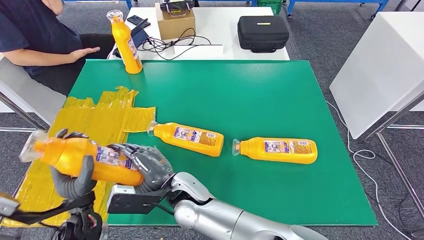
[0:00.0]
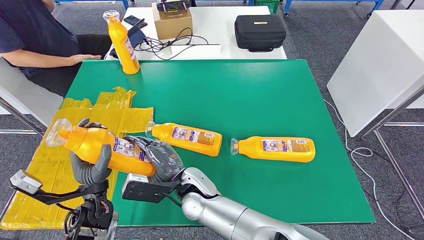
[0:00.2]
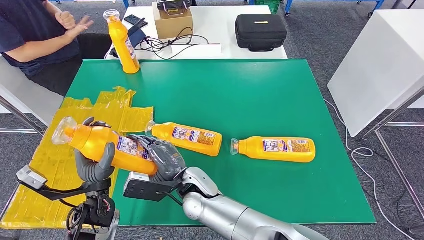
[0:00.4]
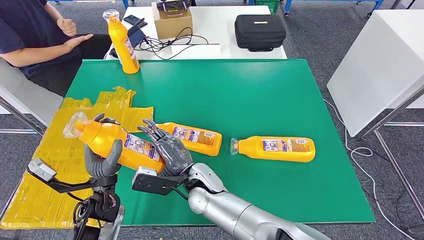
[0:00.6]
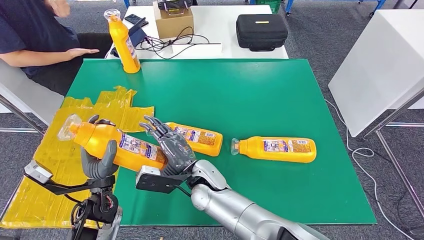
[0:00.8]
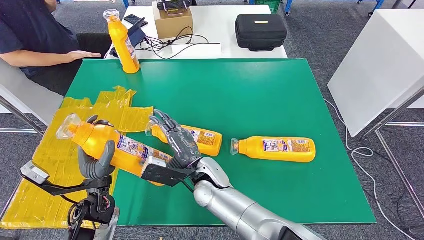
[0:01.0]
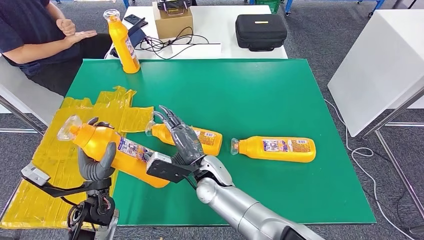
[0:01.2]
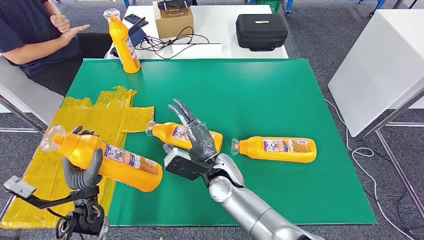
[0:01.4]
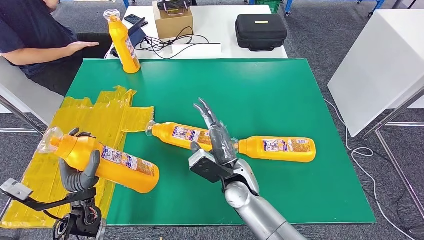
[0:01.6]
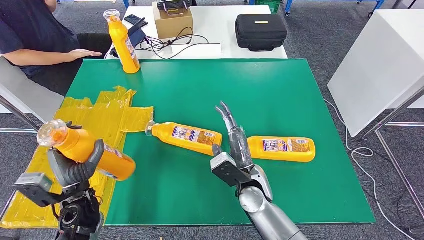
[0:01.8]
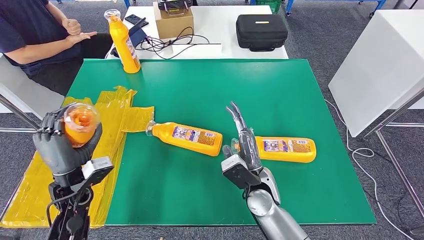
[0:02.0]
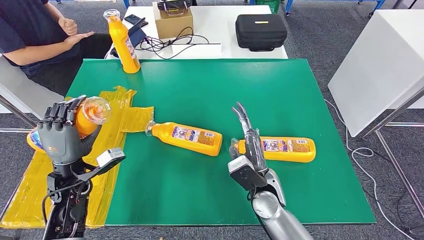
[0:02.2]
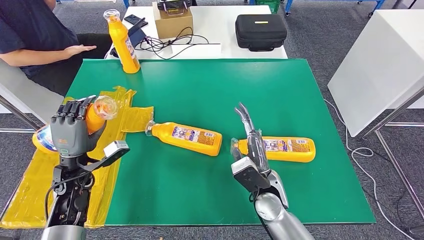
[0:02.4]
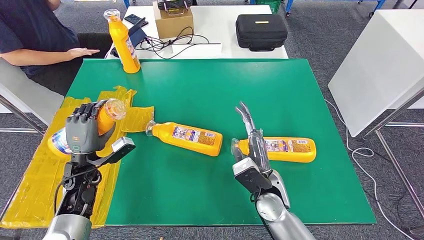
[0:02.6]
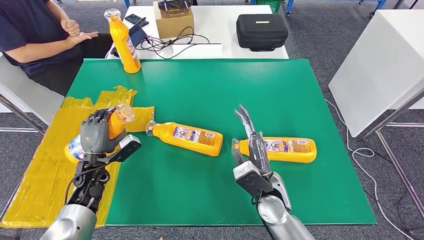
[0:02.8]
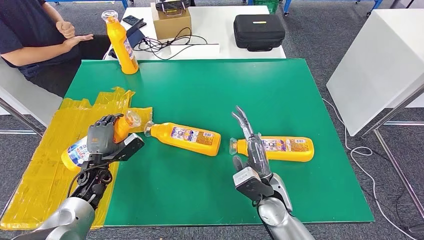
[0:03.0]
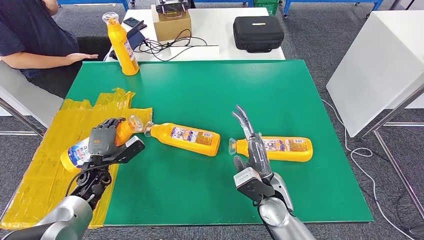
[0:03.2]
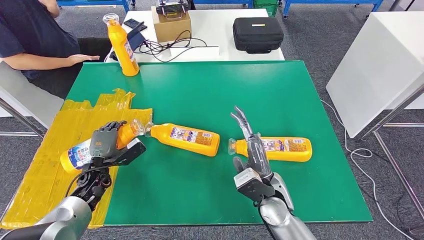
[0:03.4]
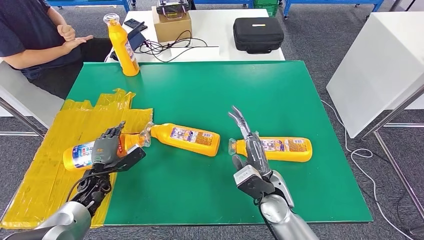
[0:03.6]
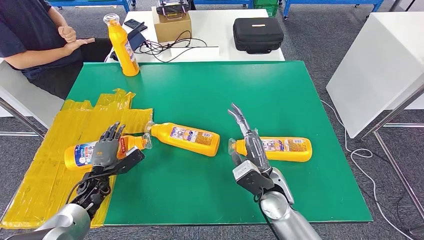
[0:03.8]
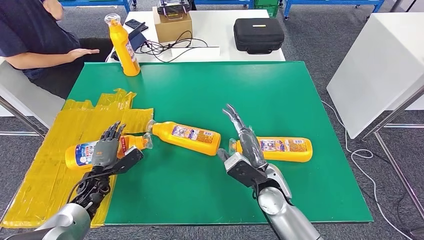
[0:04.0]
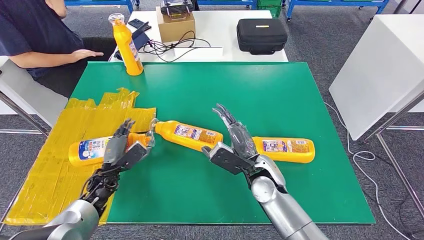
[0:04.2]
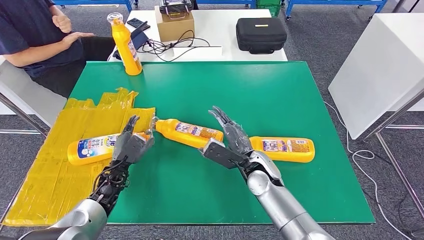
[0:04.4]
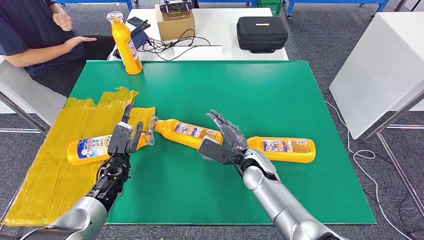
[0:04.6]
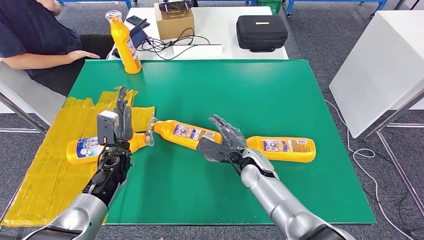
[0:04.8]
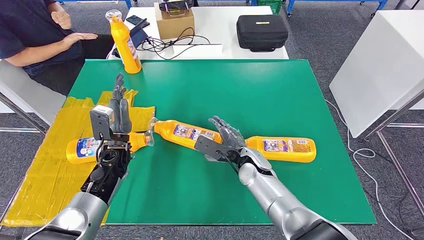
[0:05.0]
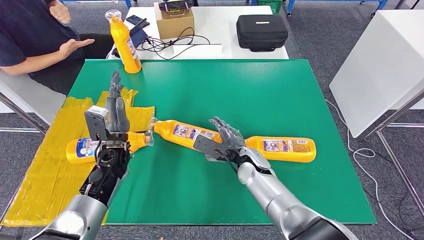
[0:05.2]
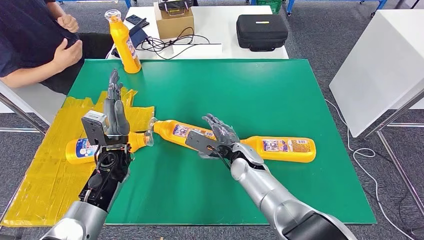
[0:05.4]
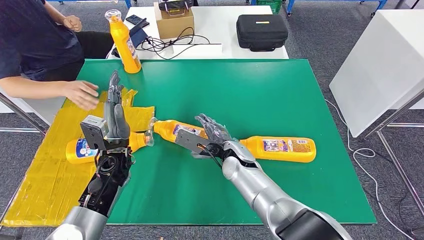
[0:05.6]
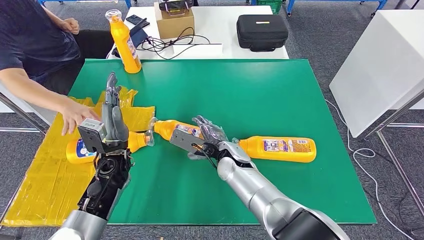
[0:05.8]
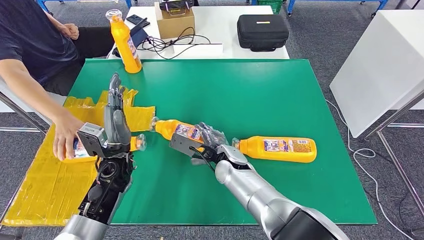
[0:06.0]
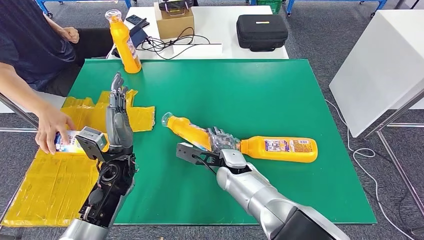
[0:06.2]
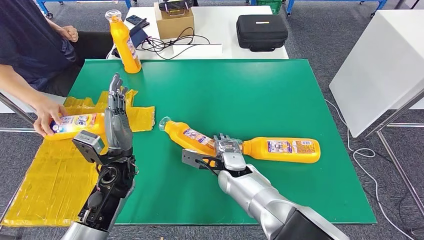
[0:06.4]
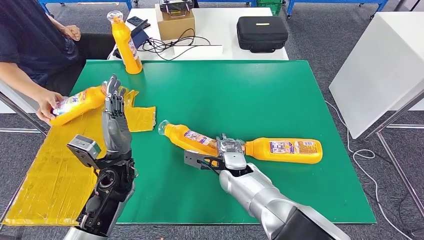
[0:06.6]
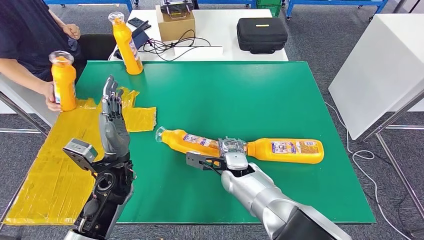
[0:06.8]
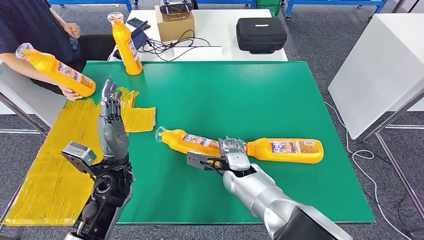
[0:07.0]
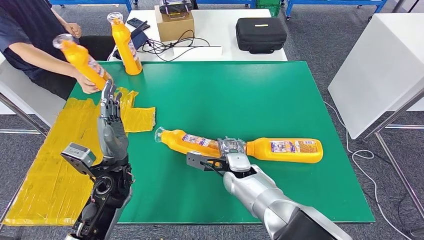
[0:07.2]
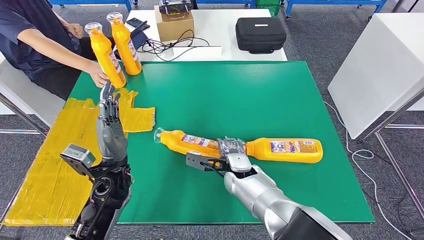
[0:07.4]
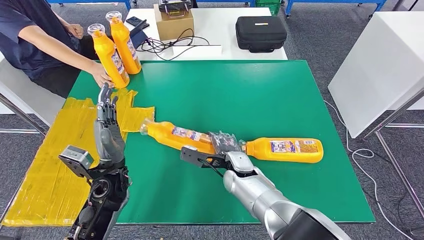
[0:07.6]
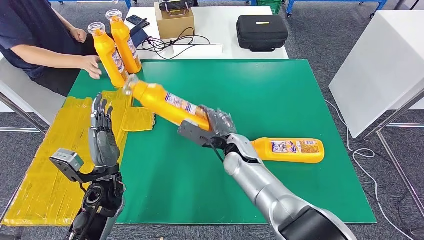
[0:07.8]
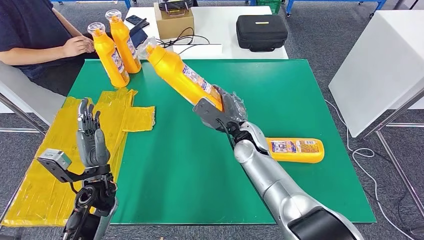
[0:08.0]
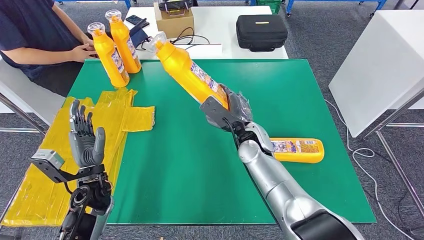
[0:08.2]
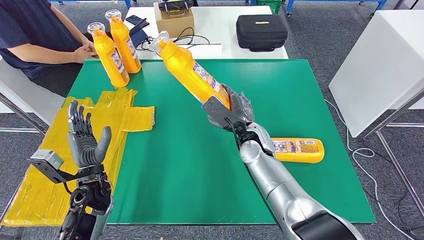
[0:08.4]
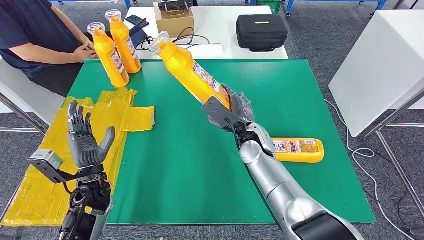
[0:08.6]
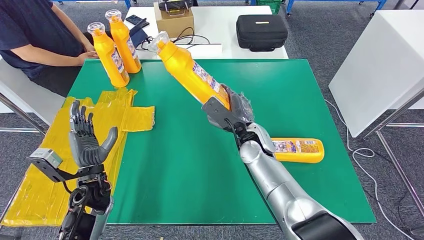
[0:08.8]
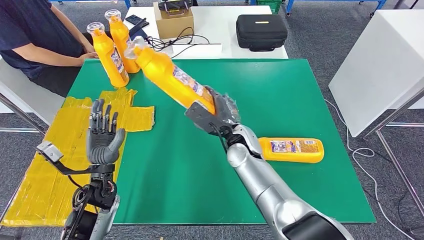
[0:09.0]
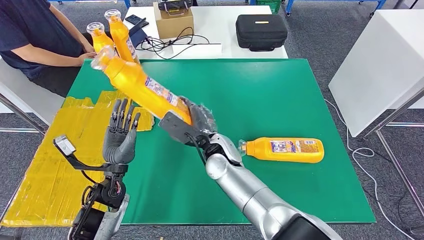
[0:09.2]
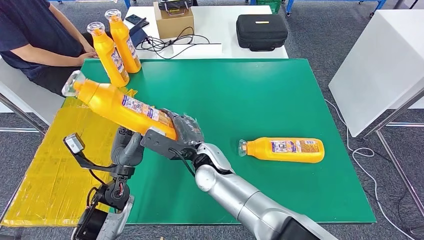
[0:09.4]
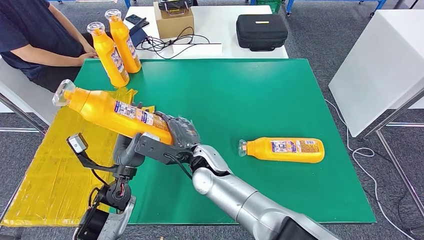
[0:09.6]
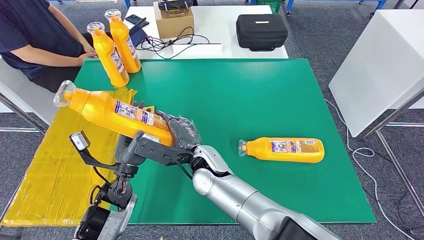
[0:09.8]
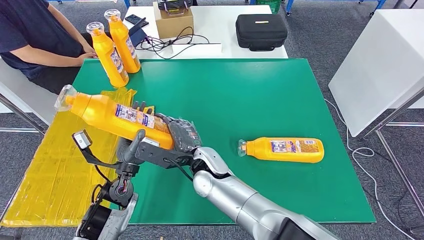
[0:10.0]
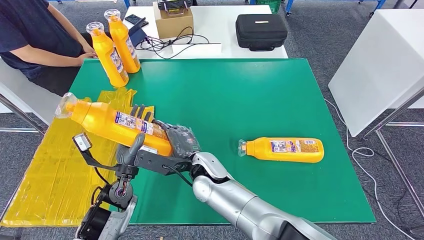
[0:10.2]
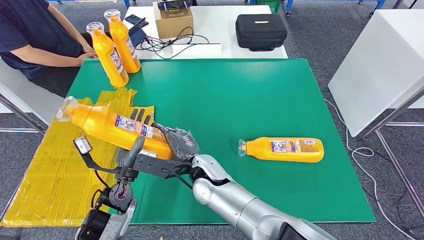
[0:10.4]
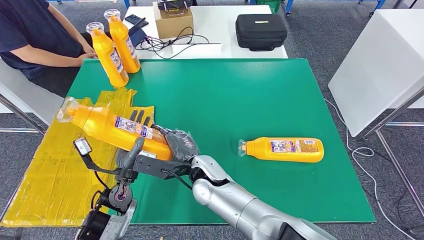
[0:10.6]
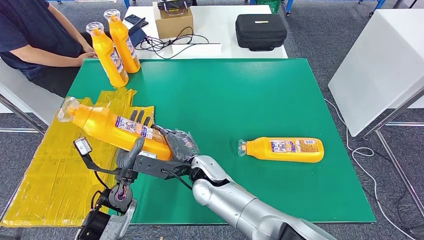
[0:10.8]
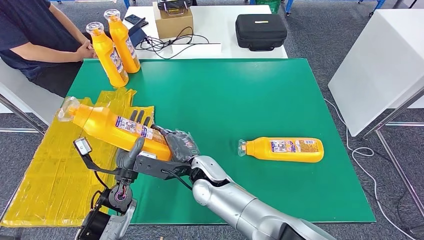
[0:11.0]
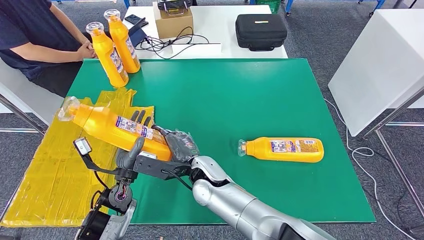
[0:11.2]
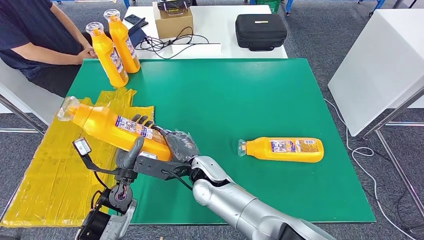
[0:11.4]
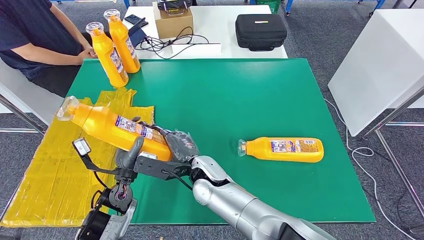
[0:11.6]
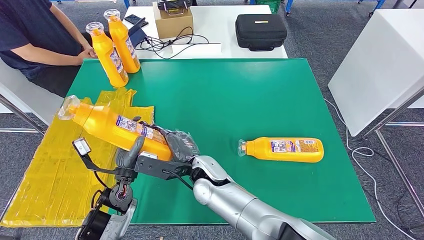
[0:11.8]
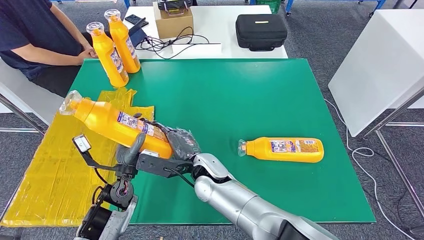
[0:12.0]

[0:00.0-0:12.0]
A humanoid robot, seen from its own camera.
Step, 0:00.0 to 0:04.6: Flip the fast-moving consumer goods bottle to the front side.
Step, 0:04.8 to 0:09.4: Pick up the fast-moving consumer goods bottle from the table.
0:10.4 to 0:12.0: Both hands stay about where they are.

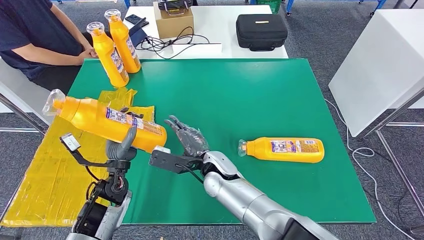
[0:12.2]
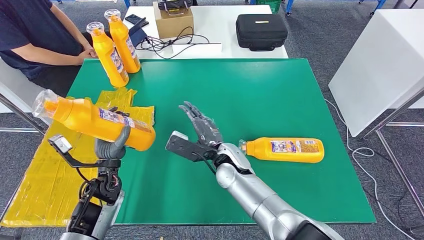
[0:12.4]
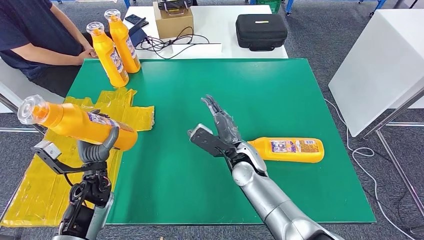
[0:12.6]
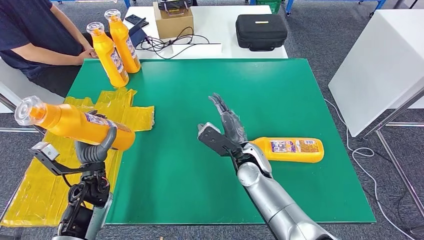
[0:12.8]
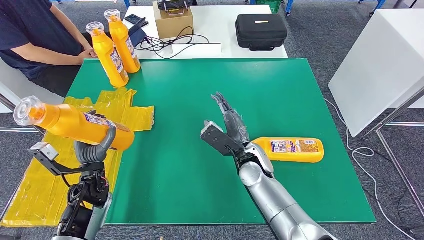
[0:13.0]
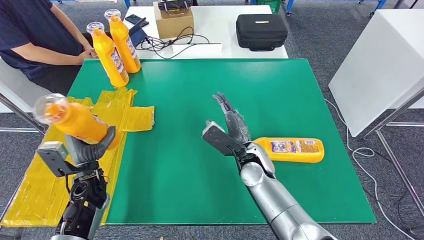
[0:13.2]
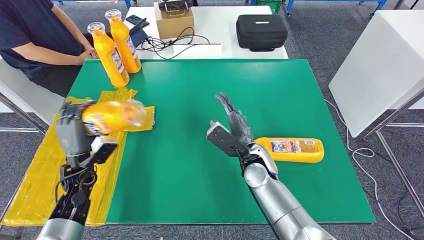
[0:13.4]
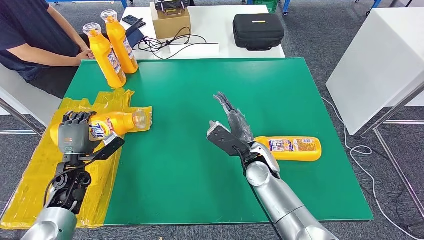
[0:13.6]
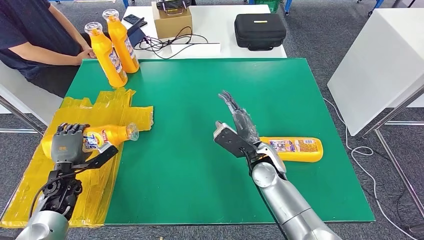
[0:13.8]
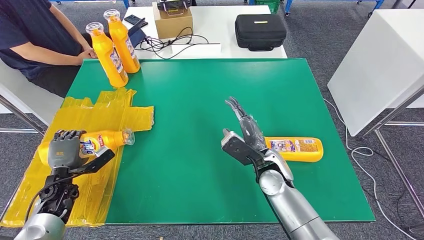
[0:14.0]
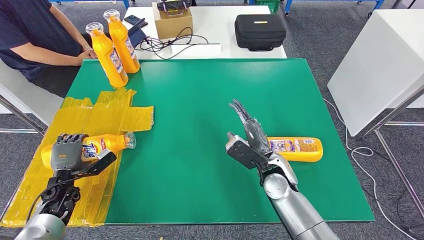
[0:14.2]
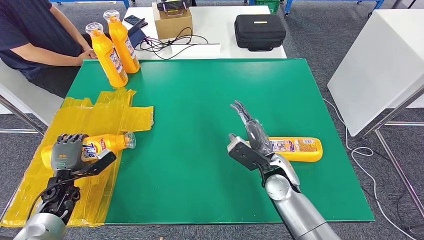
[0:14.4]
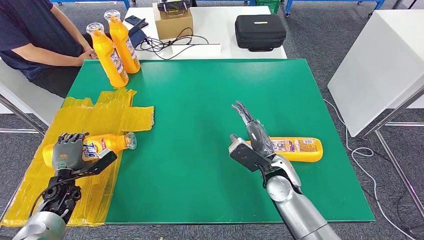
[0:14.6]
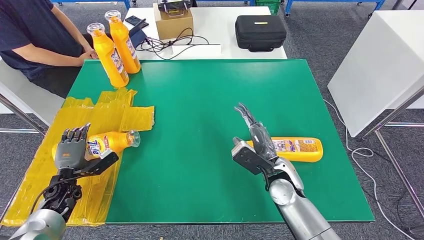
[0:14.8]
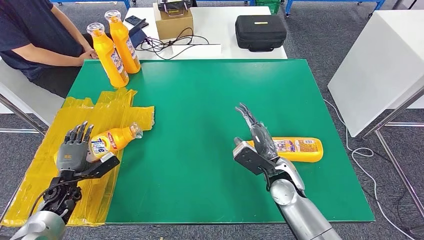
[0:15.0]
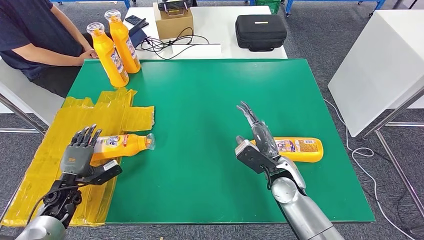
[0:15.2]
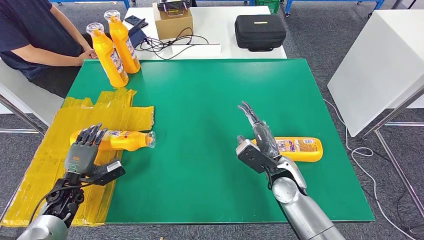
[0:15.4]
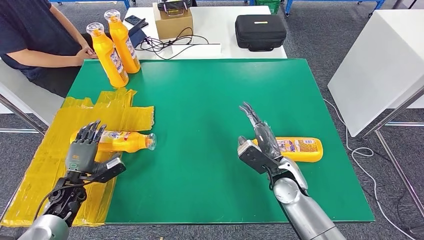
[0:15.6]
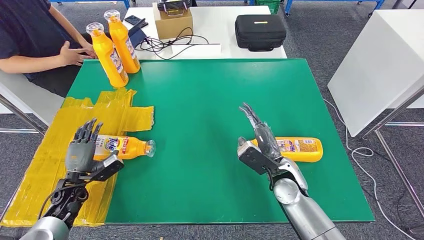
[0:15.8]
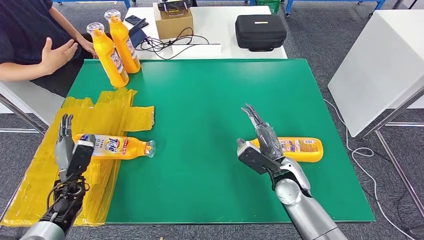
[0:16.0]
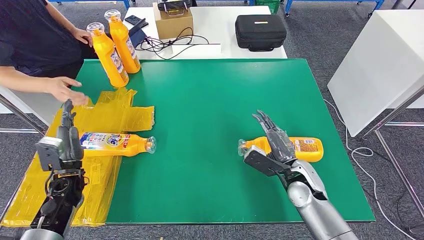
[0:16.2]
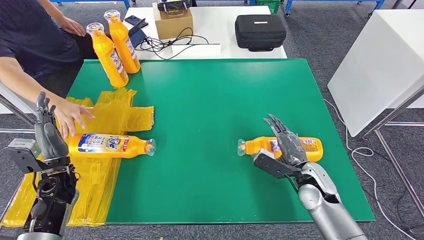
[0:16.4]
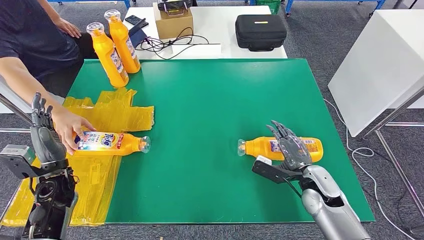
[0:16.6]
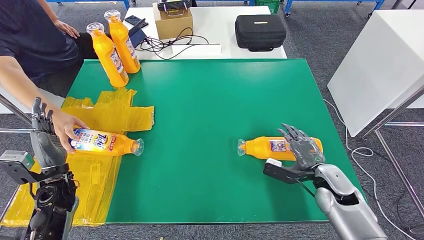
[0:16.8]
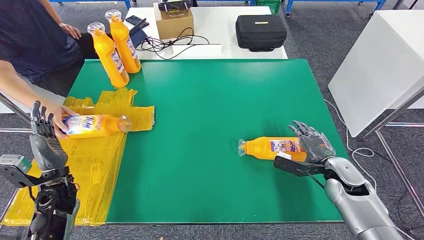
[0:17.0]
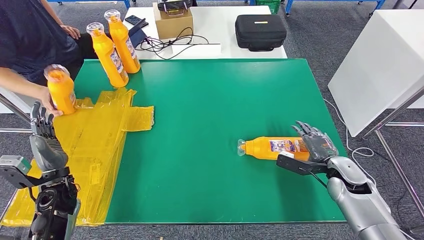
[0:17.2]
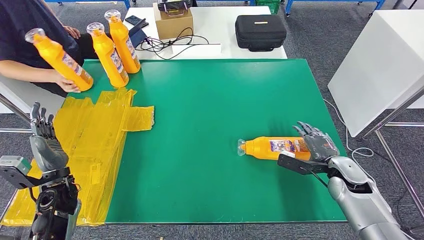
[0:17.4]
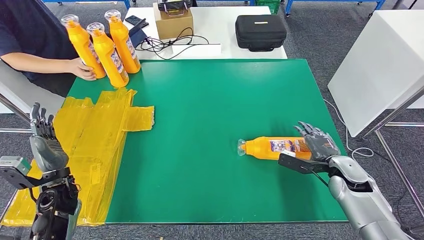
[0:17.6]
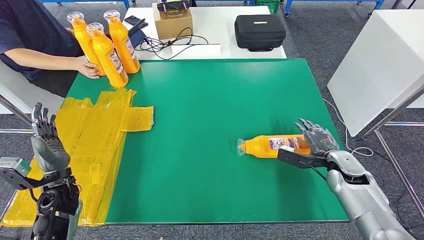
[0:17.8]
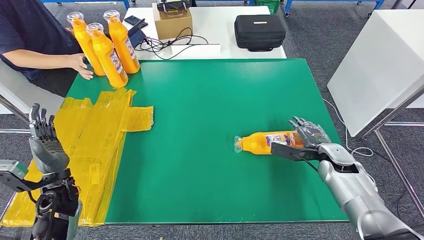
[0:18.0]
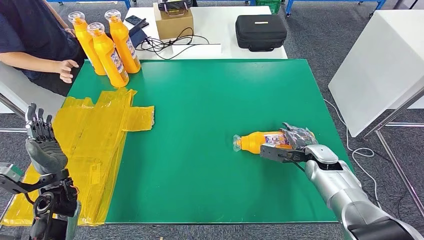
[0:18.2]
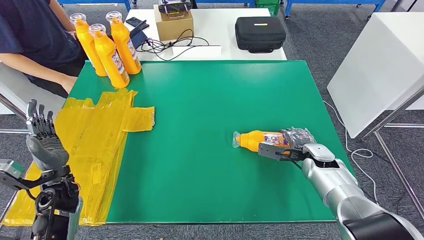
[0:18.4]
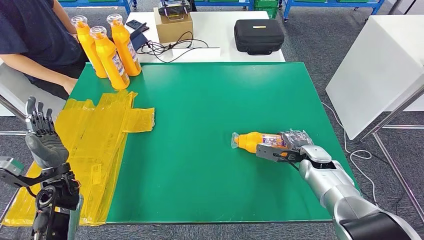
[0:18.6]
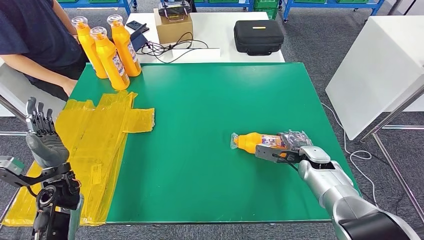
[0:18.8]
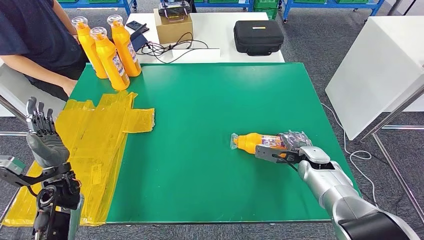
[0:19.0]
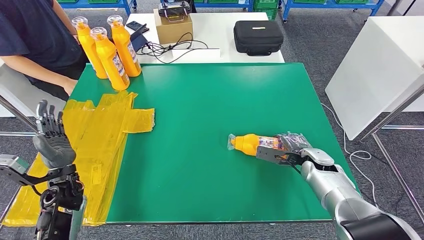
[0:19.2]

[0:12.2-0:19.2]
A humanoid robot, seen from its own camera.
Step, 0:12.2 to 0:14.8: Flip the fast-moving consumer goods bottle to the front side.
0:15.0 to 0:16.4: The left hand moves upward, about 10 cm, while the right hand moves to the right, approximately 10 cm.
